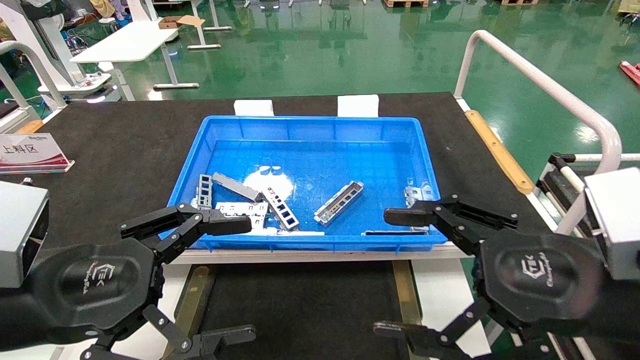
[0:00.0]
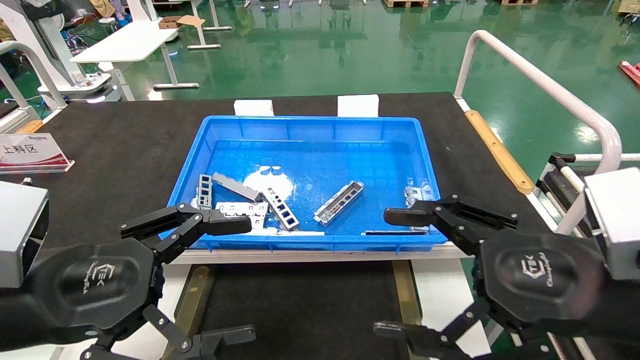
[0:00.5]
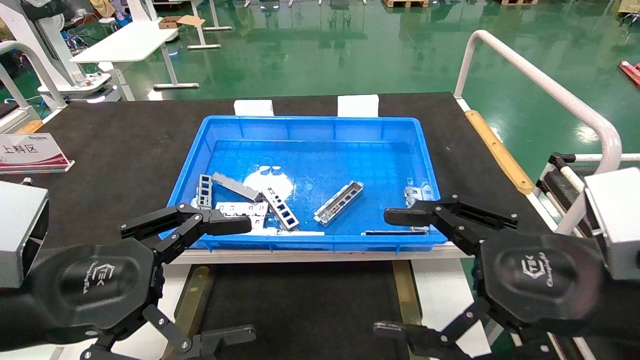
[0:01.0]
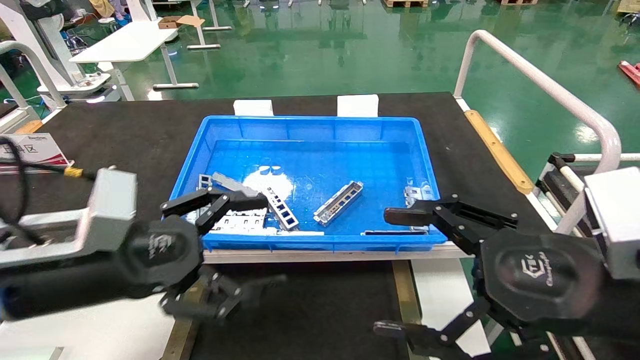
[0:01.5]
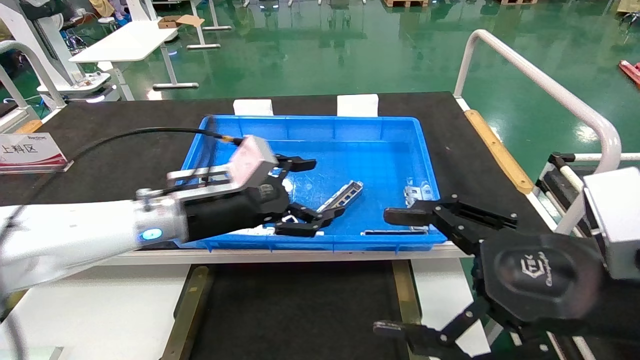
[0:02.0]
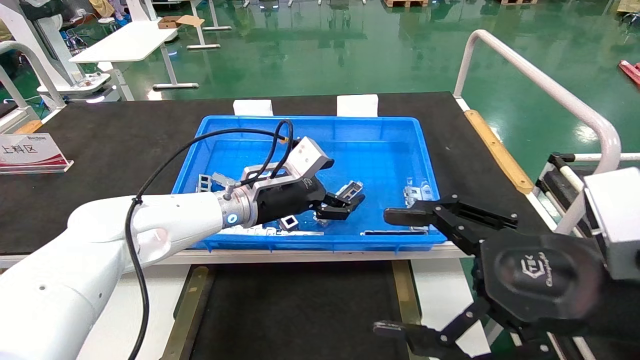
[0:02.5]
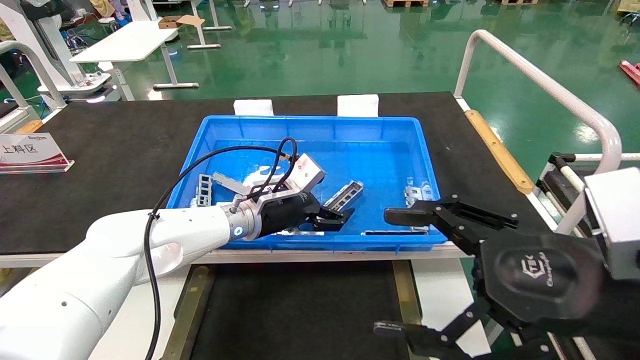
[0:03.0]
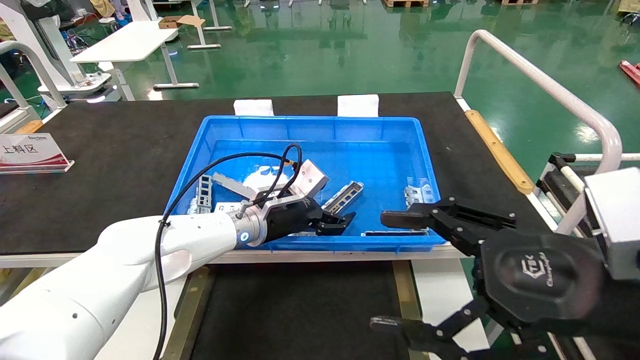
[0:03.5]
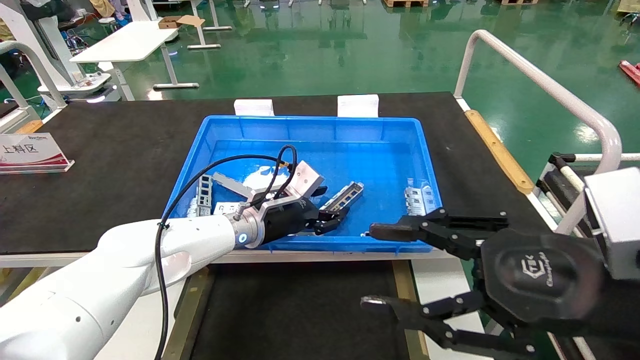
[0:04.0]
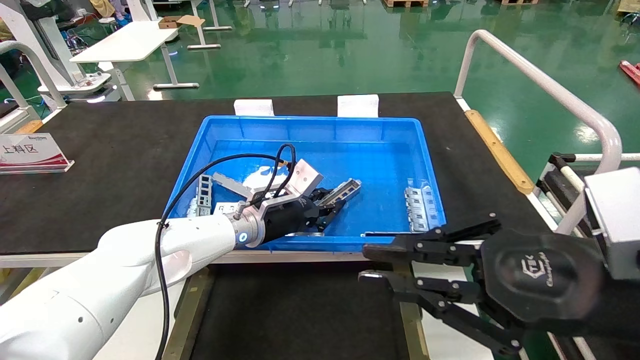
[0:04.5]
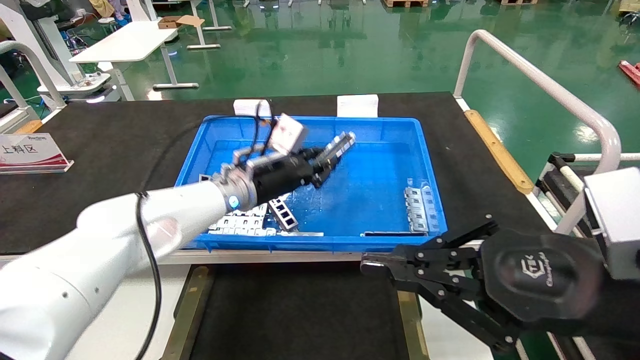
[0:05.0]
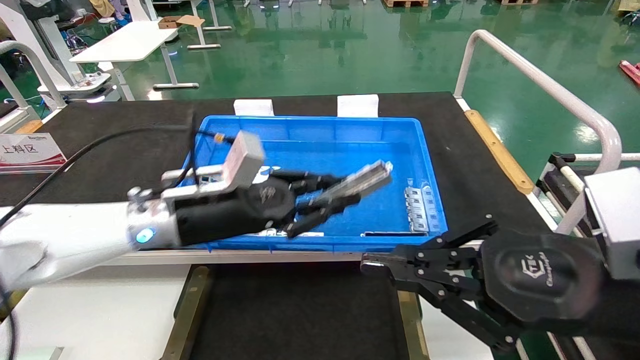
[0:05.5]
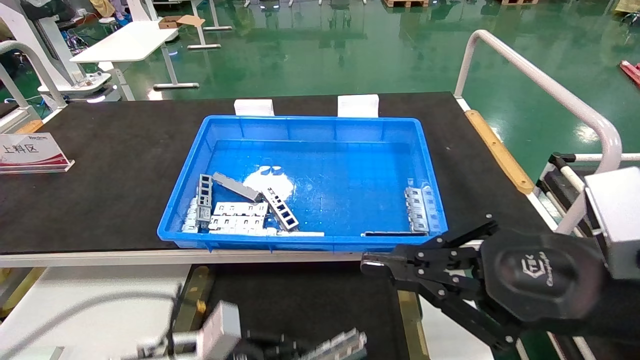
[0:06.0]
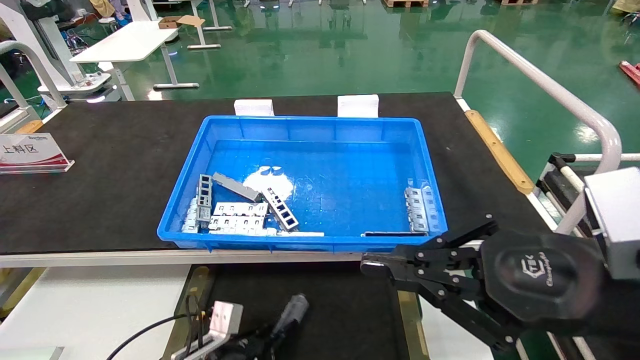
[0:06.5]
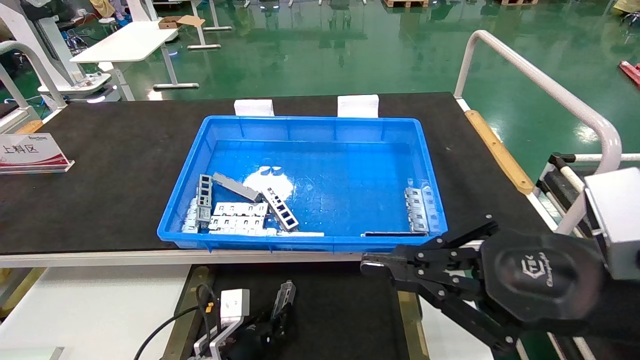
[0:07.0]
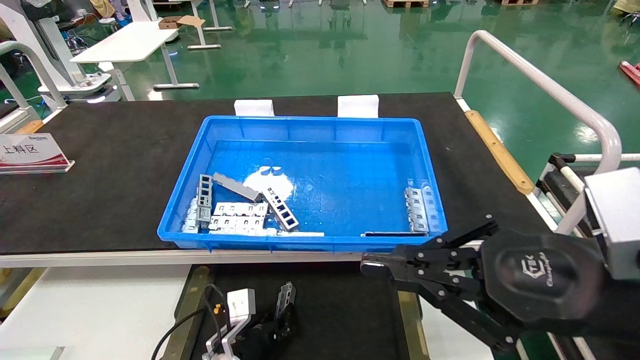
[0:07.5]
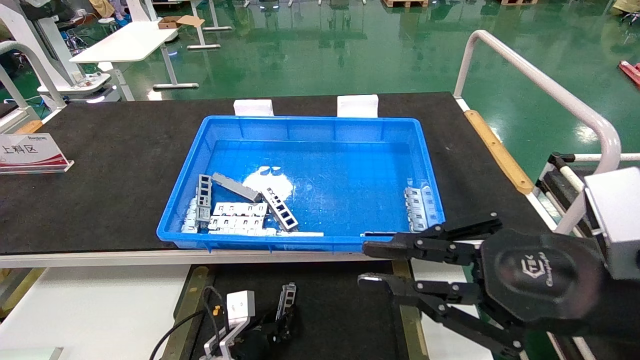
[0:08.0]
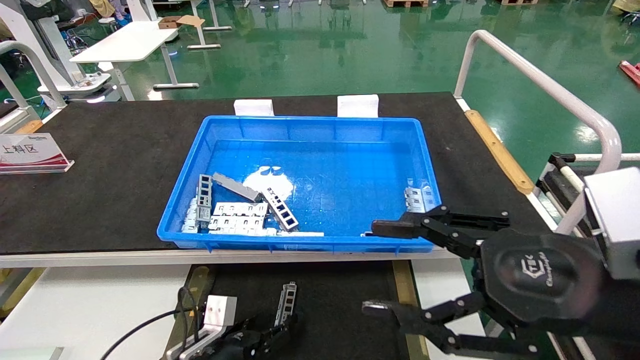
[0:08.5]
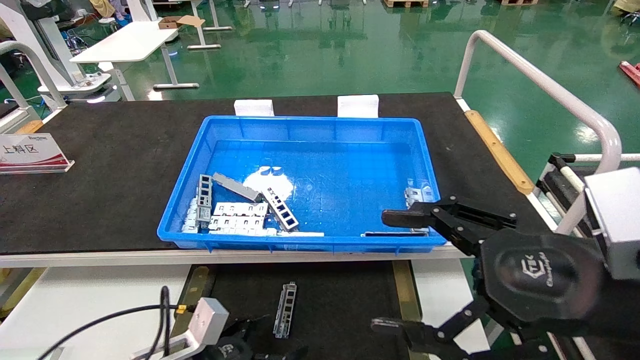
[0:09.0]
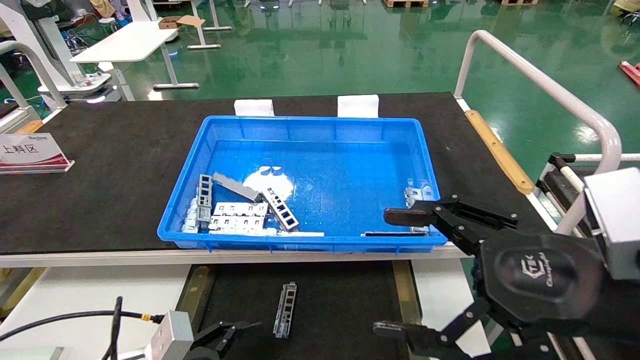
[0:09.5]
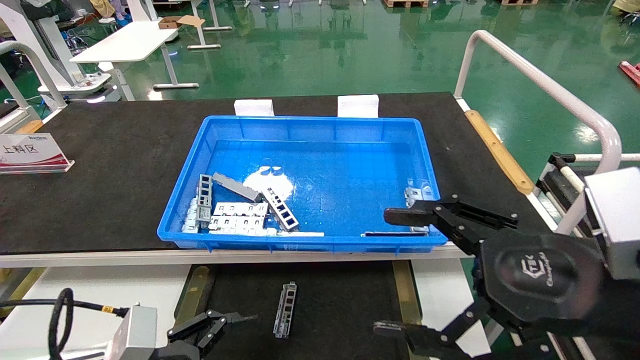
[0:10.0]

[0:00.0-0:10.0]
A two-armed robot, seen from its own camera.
Task of the whole recording: Grasp the part with one hand and place it on the black container.
Step, 0:01.5 to 0:04.5: Pick up the front USB bracket from the feeding area.
Step, 0:05.0 to 0:08.0: Place the front USB bracket into the box.
0:00.0 to 0:02.0: The left gripper goes about 20 cm forward and to the right.
0:02.0 to 0:04.0: The left gripper shifts roughly 15 cm forward, downward and to the right, and closes up, while the right gripper closes up.
0:04.0 to 0:06.0: The left gripper travels backward, downward and to the left by about 25 cm, and closes. Meanwhile the right gripper closes its fingers.
0:06.0 to 0:08.0: The left gripper is displaced downward, forward and to the right by roughly 15 cm.
0:08.0 to 0:10.0: The left gripper moves upward, backward and to the left, approximately 25 cm, and opens. The right gripper opens.

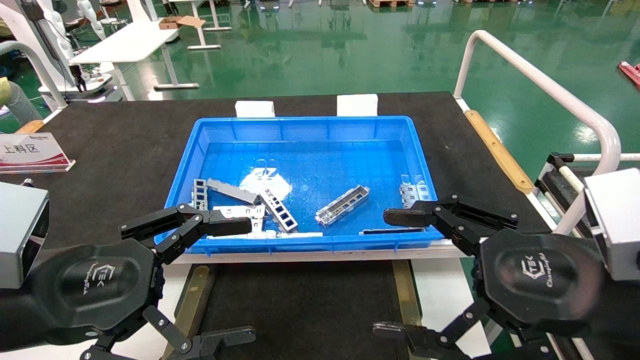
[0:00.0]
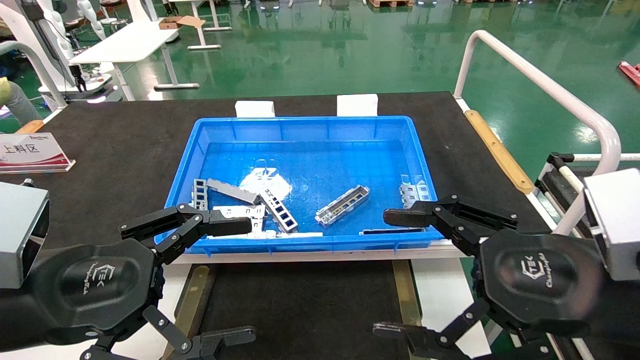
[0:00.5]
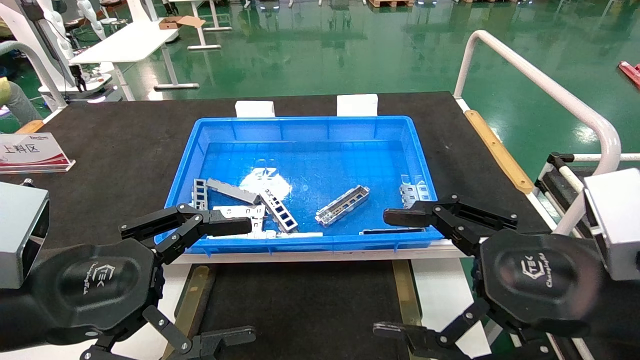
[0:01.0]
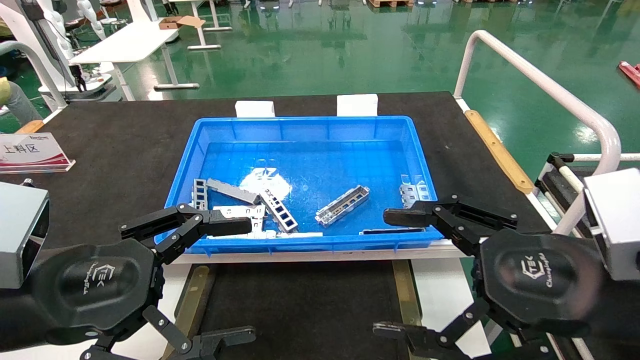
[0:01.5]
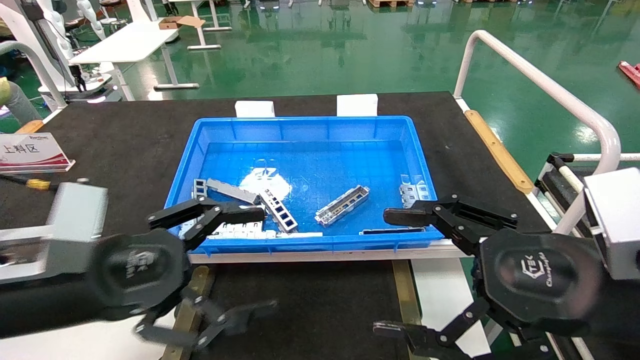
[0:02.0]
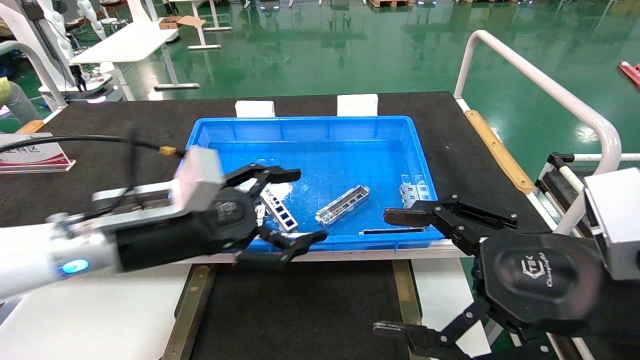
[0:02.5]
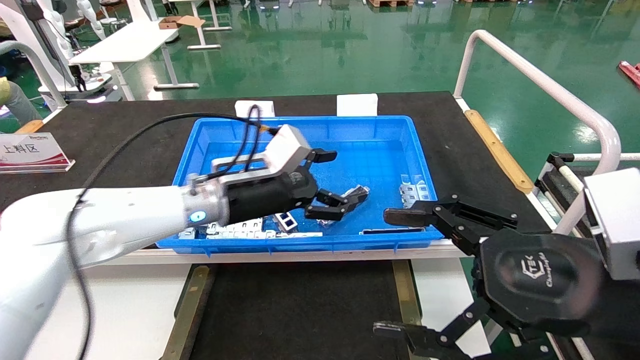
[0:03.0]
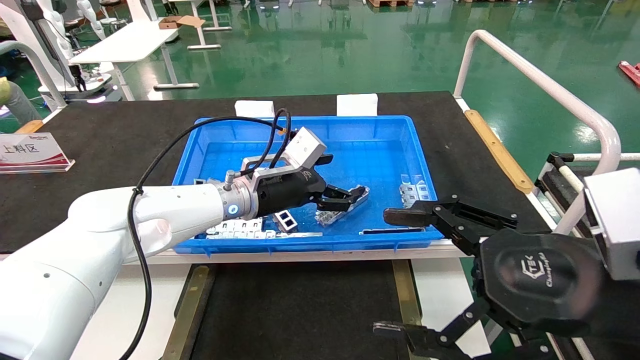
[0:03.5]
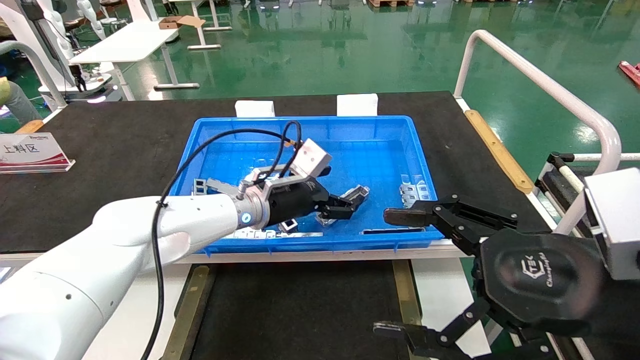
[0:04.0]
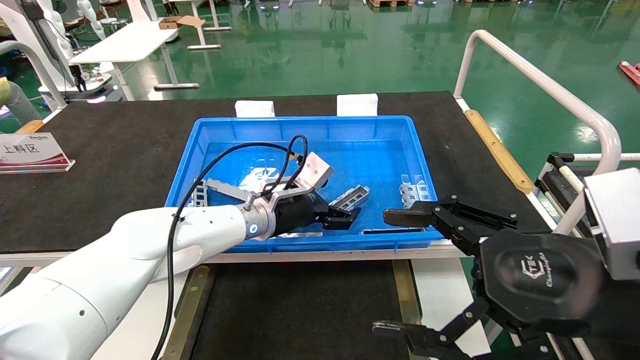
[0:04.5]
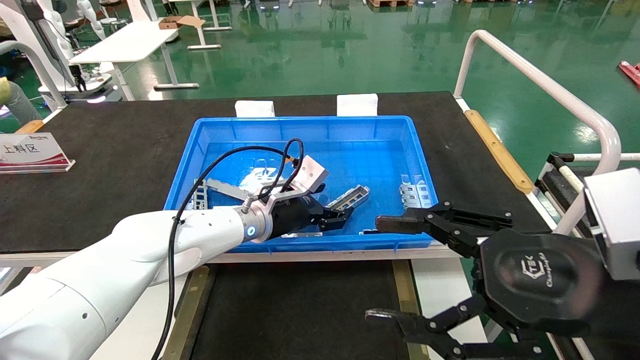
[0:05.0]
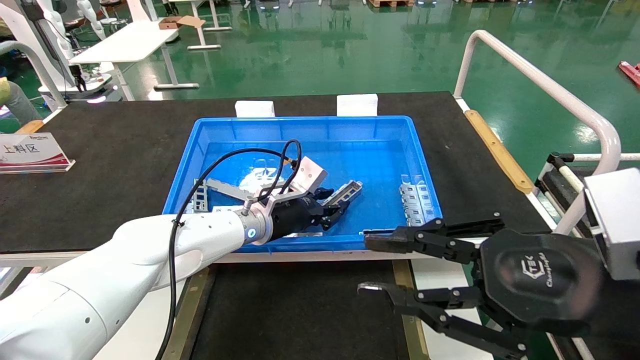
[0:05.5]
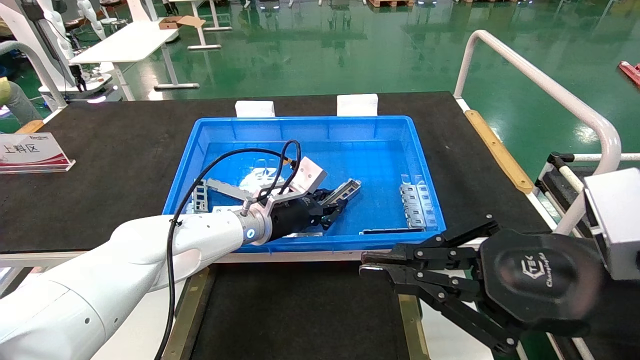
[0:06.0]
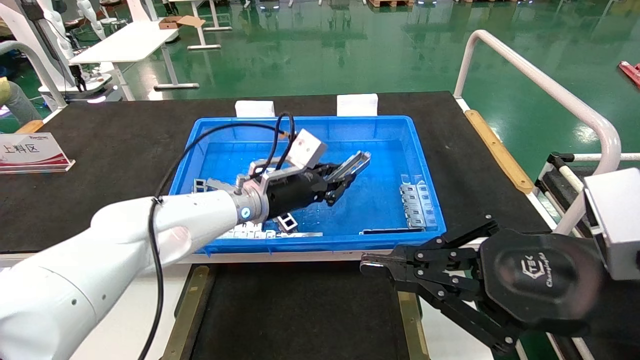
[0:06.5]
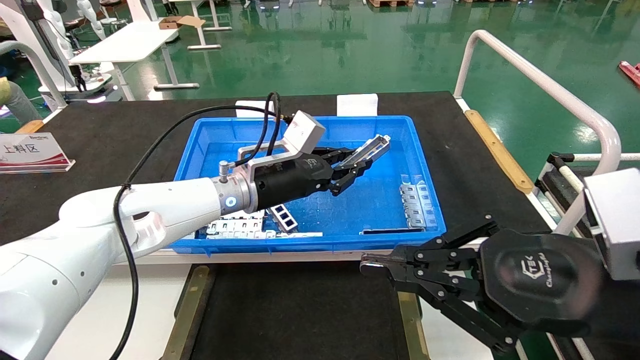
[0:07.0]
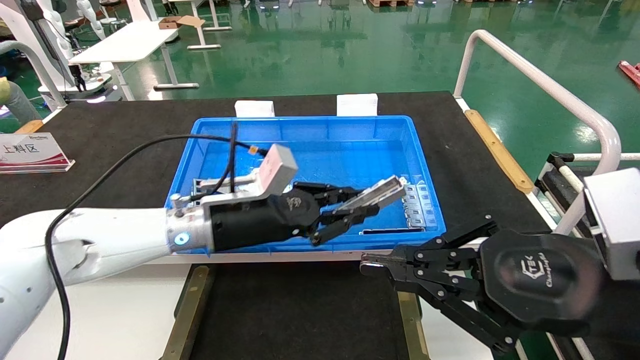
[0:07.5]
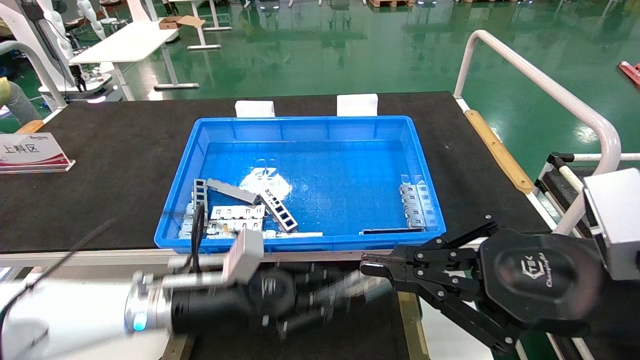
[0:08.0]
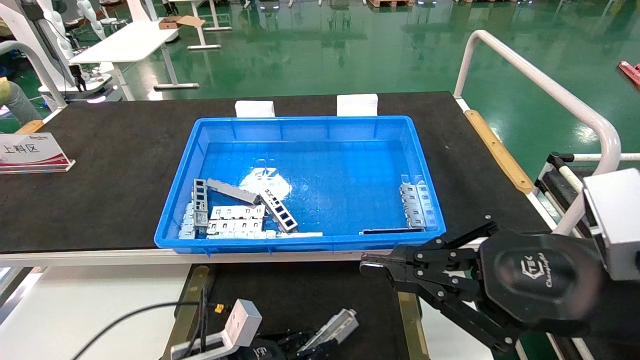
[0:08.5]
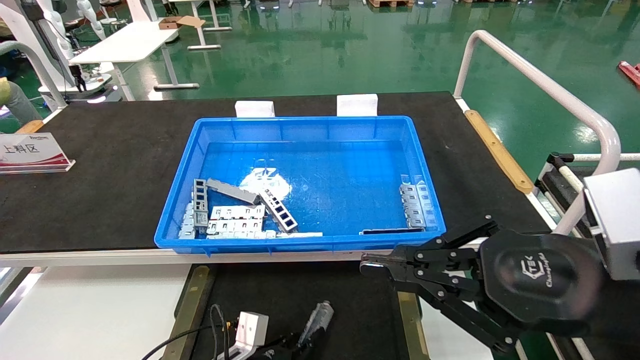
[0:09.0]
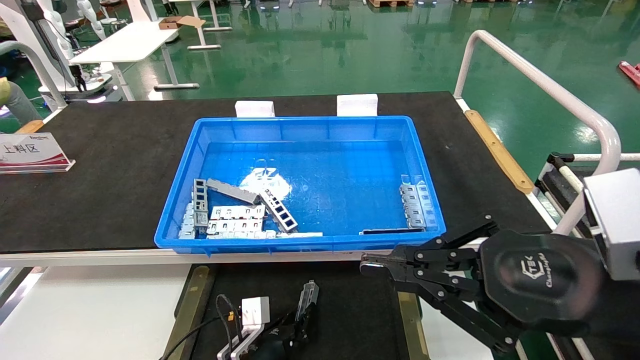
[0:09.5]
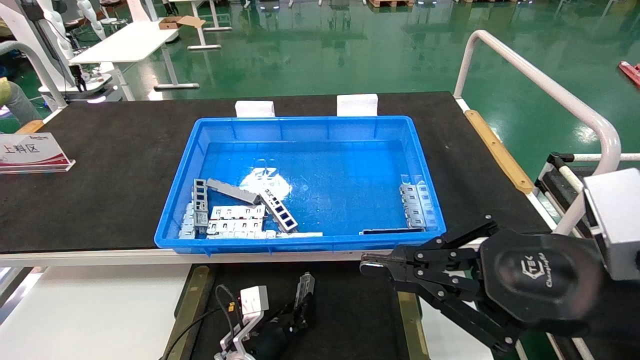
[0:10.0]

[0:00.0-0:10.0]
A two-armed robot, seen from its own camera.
Task of the whole recording: Grasp the part with one hand and place it on the black container.
Step, 0:02.0 to 0:05.5: Pick up the front USB bracket from the feeding area.
0:00.0 to 0:02.0: There are only small adjustments of the grippers.
0:02.0 to 0:04.0: The left gripper shifts some 30 cm forward and to the right.
0:04.0 to 0:06.0: The right gripper closes up. Meanwhile the left gripper closes its fingers.
0:06.0 to 0:08.0: The left gripper travels backward, to the left and downward by about 15 cm.
0:08.0 to 0:10.0: The left gripper is displaced downward by roughly 20 cm.
